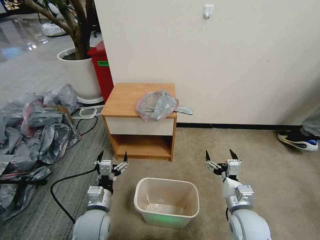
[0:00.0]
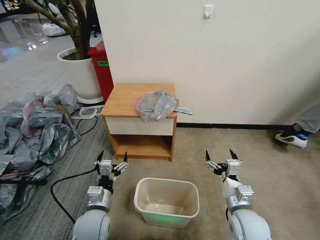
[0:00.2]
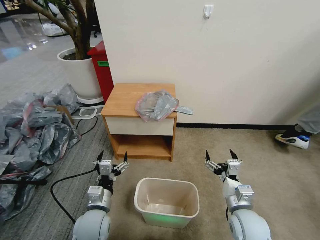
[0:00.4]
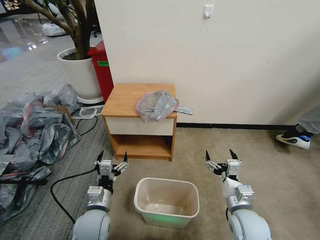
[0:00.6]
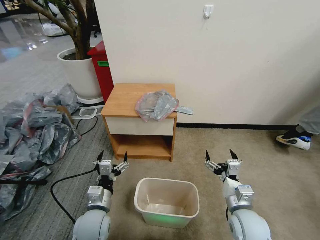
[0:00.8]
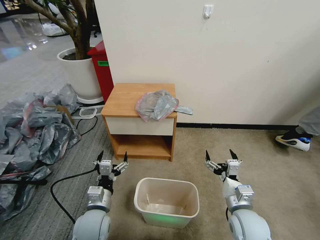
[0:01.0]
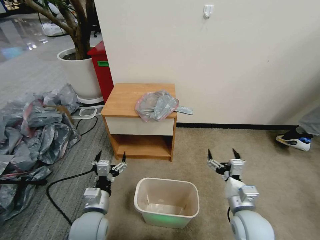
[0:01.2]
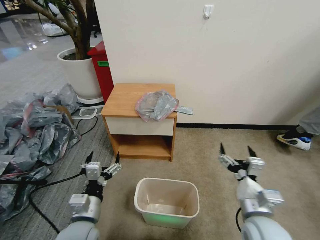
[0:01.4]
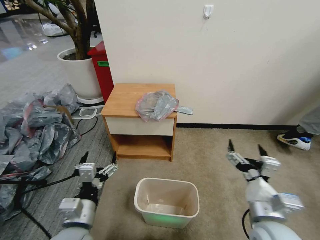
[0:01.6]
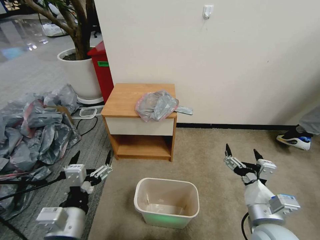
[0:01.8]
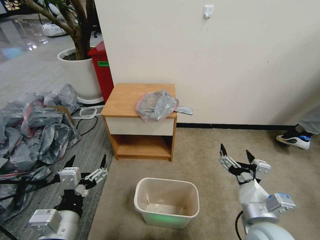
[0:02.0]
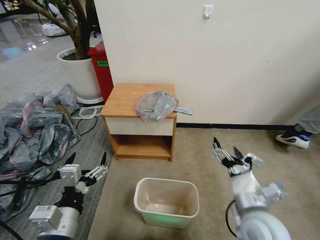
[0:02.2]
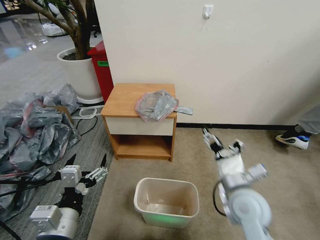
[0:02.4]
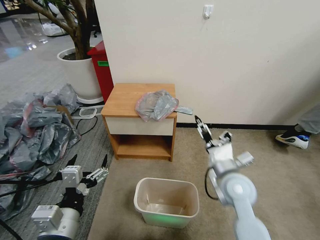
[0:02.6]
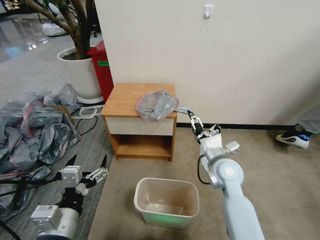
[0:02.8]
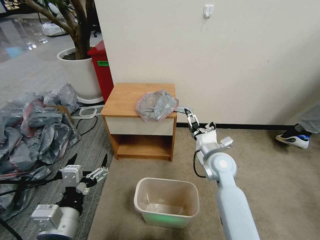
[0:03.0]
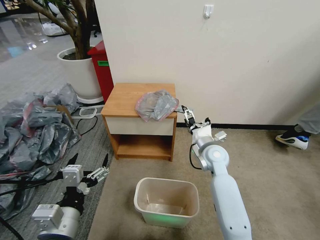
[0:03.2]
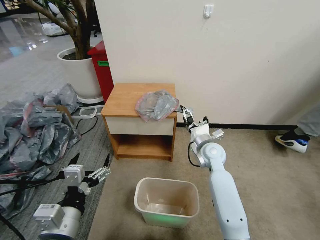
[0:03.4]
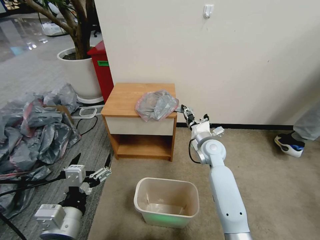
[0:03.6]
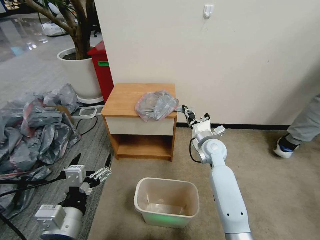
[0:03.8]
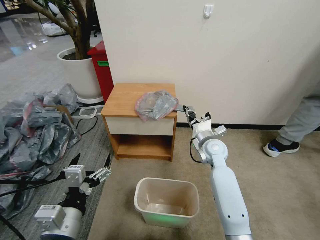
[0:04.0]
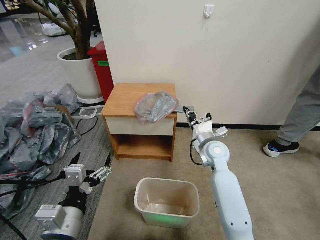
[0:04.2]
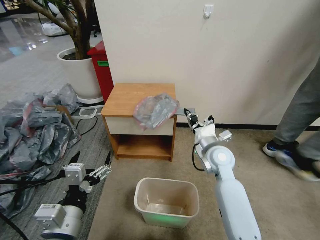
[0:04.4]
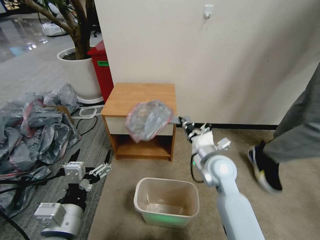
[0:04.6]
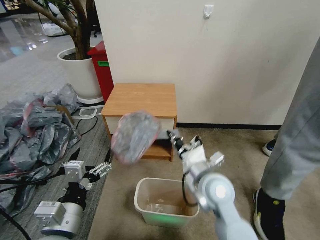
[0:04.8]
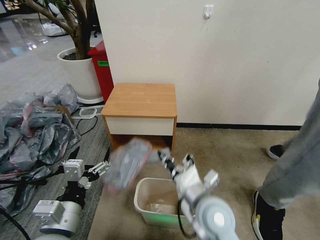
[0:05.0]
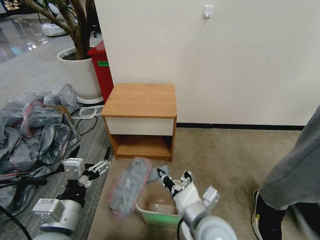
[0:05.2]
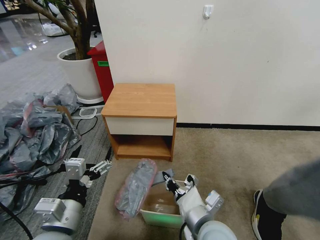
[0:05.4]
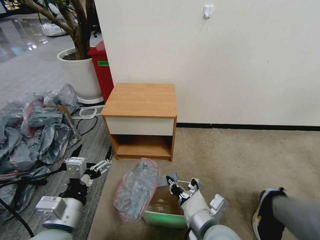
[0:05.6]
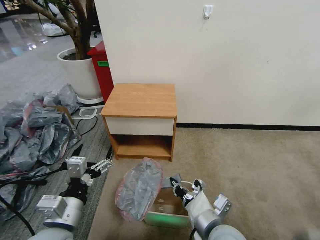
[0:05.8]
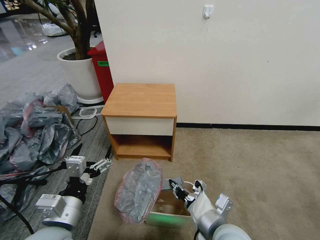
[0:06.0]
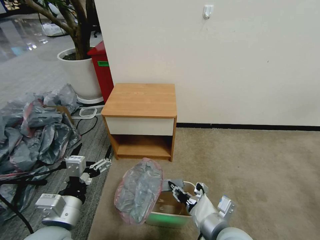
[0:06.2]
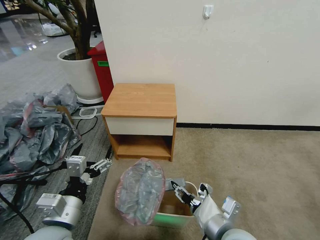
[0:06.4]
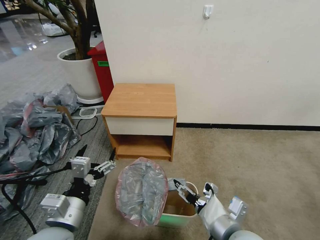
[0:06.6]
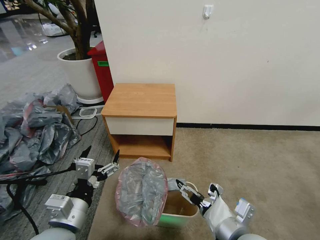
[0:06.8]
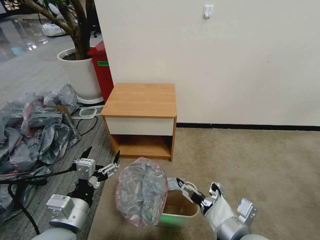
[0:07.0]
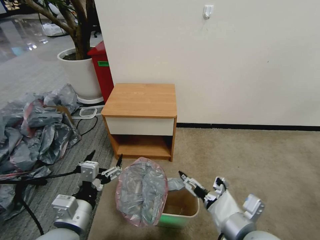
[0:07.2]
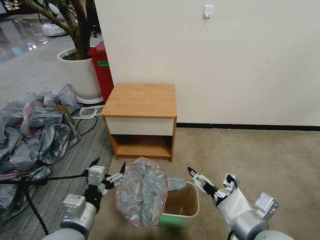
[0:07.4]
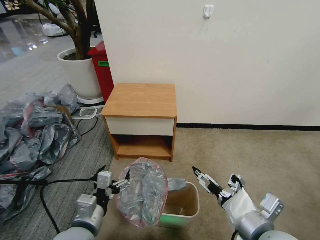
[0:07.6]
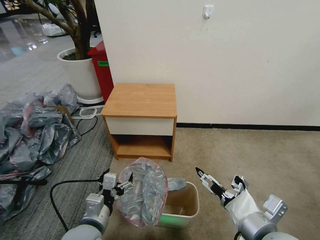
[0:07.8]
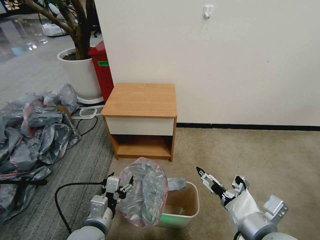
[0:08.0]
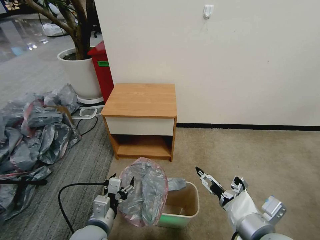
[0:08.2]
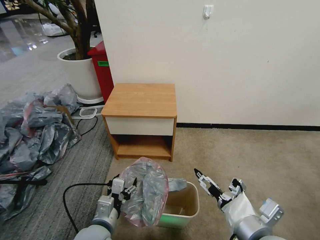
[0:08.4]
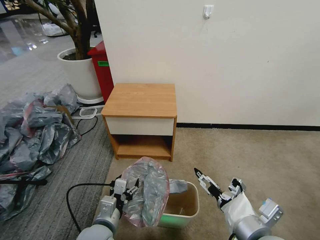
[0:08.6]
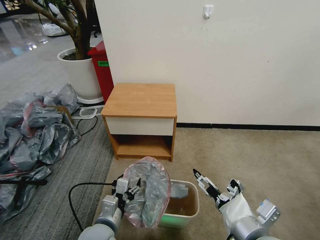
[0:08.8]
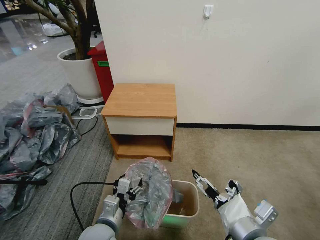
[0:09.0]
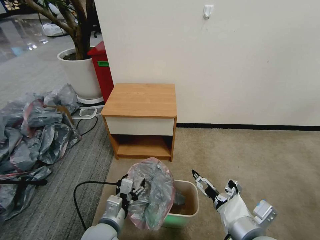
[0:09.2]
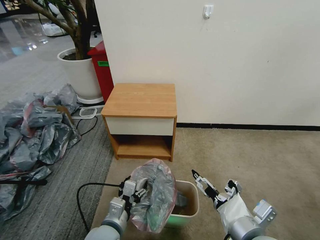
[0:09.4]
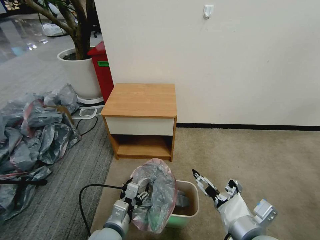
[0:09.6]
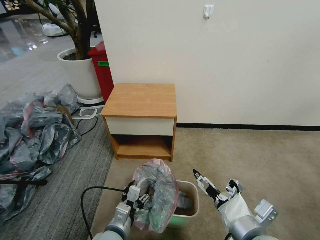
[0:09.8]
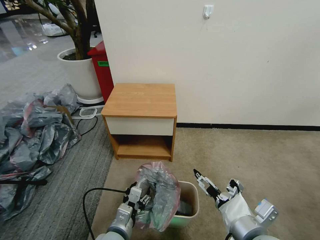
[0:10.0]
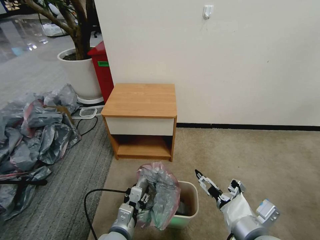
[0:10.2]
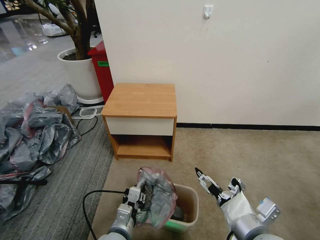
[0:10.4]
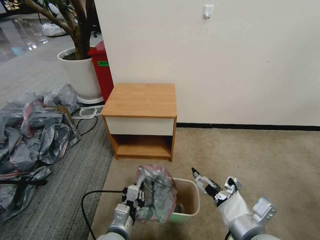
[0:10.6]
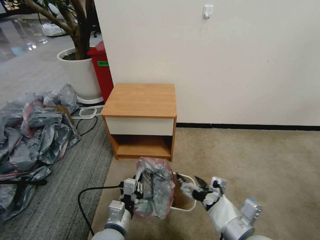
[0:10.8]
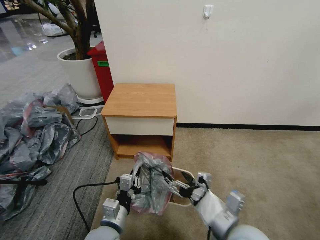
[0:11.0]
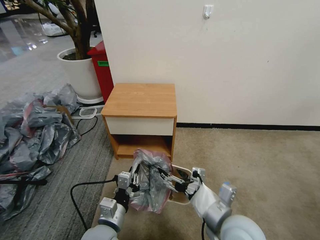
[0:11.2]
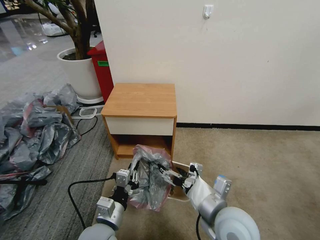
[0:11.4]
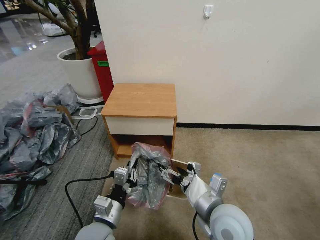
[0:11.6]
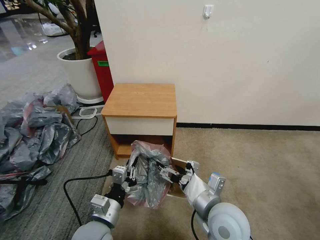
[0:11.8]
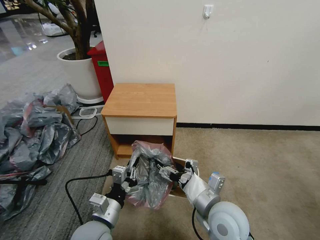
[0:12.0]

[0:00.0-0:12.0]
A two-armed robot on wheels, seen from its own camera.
Task of the whole recording: Pick up the garbage bag from the table and place it over the trash can.
0:01.6 to 0:03.0: The left gripper shifts about 5 cm upward. Meanwhile the right gripper is displaced forward by roughly 20 cm.
0:03.0 to 0:04.4: The right gripper closes its fingers.
0:04.4 to 0:06.0: The right gripper goes some 25 cm backward.
0:06.0 to 0:07.6: The left gripper is displaced downward by approximately 5 cm. Meanwhile the right gripper heads upward and to the right, covering some 10 cm, and opens up.
0:07.6 to 0:09.0: The left gripper travels downward by some 5 cm.
0:09.0 to 0:10.4: The left gripper closes its fingers.
0:10.4 to 0:12.0: The left gripper ends up approximately 5 cm from where it was. The right gripper is displaced forward and to the left by roughly 10 cm.

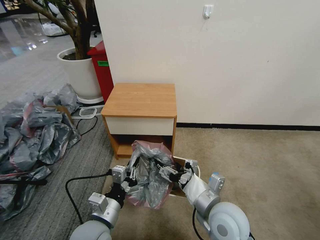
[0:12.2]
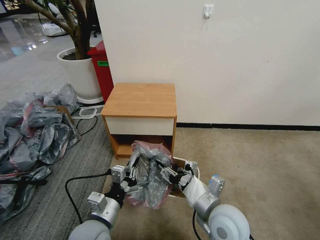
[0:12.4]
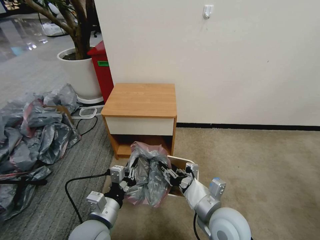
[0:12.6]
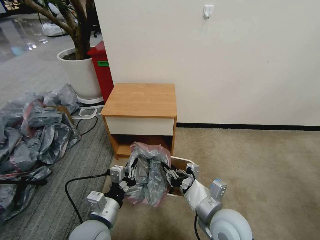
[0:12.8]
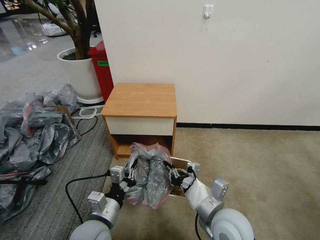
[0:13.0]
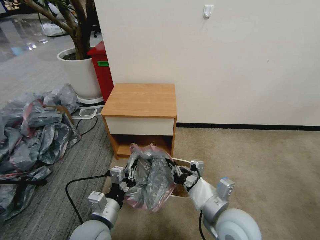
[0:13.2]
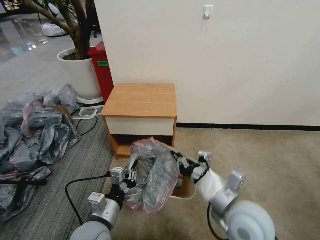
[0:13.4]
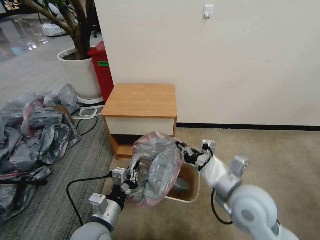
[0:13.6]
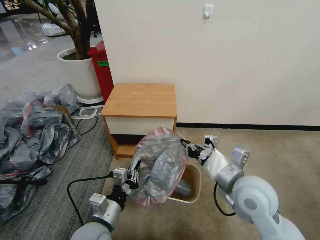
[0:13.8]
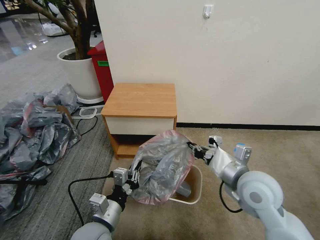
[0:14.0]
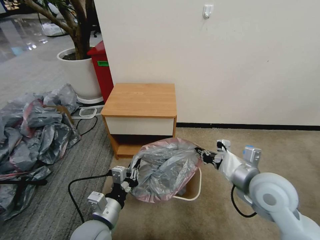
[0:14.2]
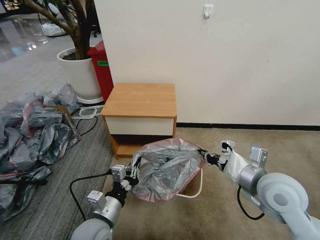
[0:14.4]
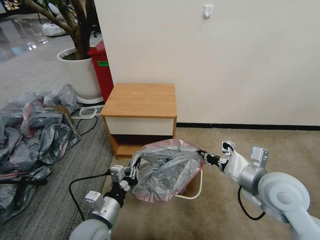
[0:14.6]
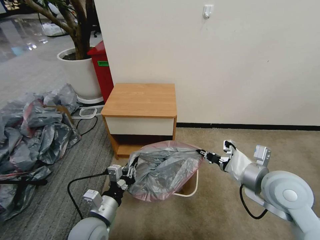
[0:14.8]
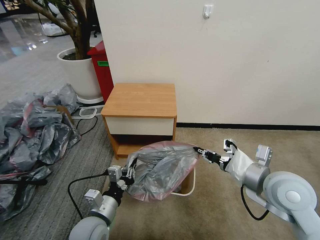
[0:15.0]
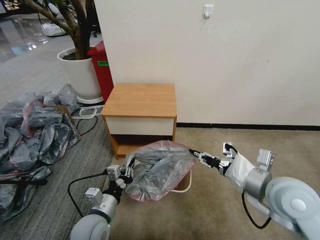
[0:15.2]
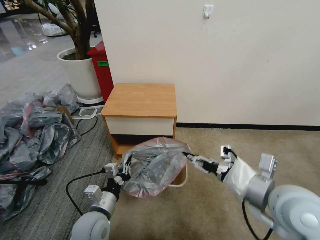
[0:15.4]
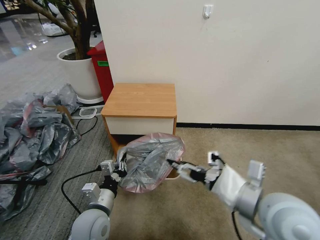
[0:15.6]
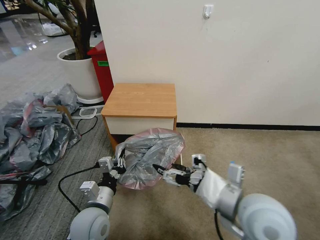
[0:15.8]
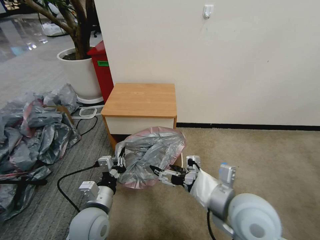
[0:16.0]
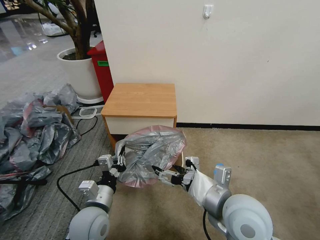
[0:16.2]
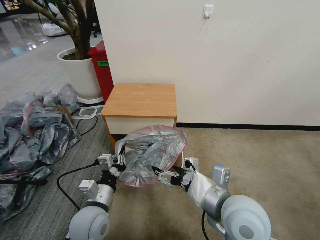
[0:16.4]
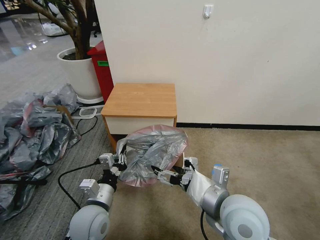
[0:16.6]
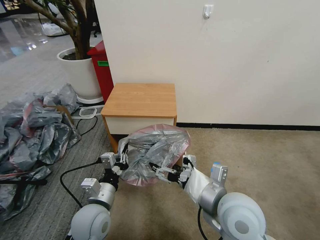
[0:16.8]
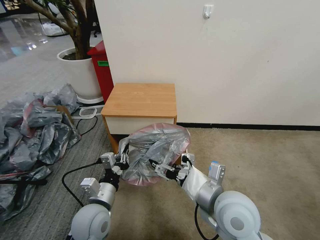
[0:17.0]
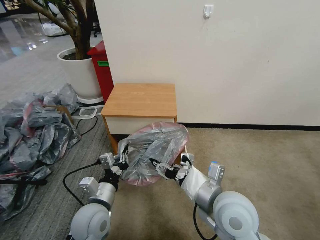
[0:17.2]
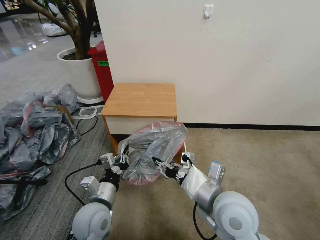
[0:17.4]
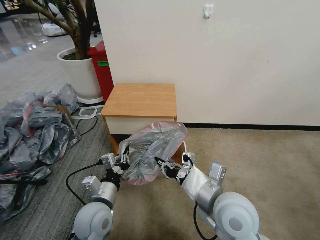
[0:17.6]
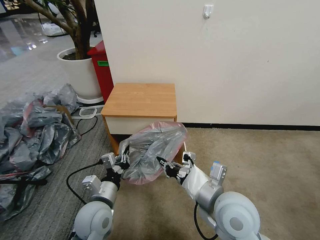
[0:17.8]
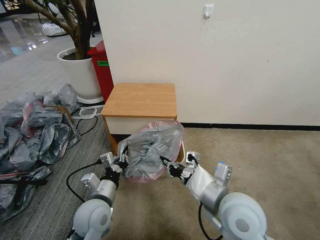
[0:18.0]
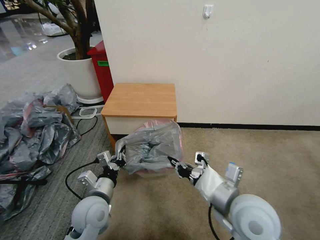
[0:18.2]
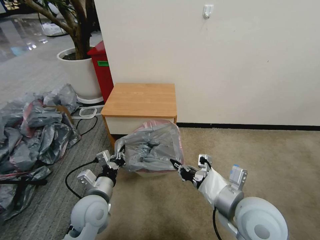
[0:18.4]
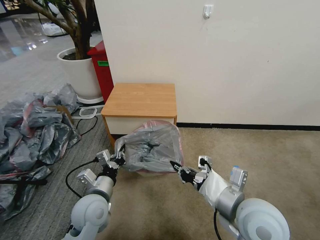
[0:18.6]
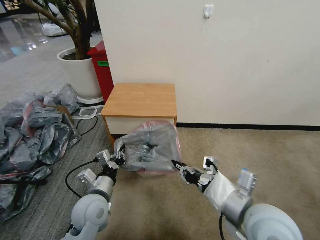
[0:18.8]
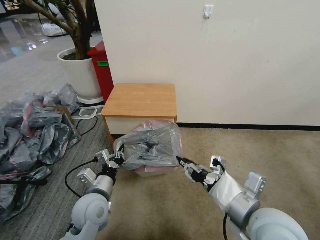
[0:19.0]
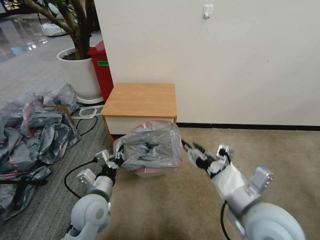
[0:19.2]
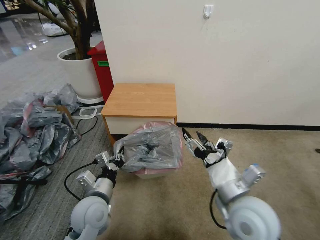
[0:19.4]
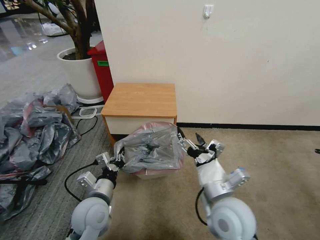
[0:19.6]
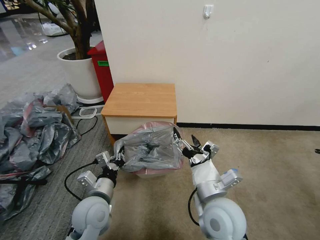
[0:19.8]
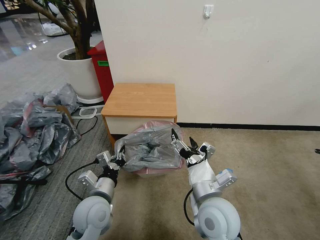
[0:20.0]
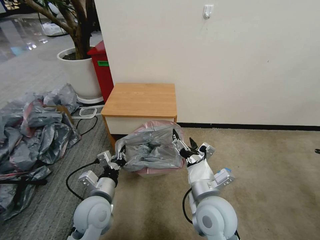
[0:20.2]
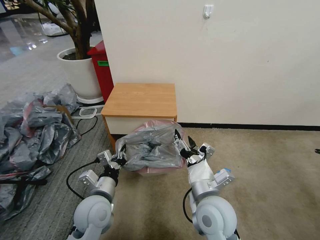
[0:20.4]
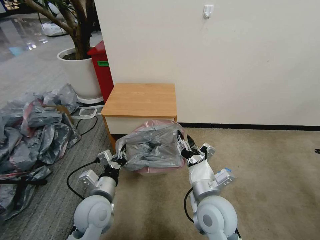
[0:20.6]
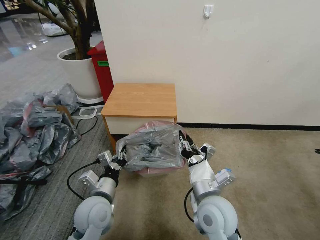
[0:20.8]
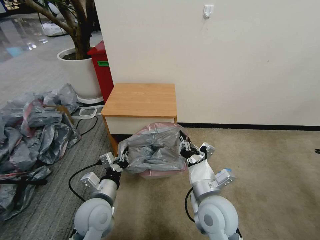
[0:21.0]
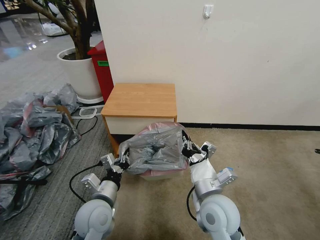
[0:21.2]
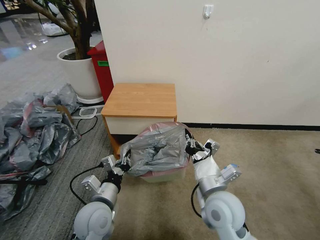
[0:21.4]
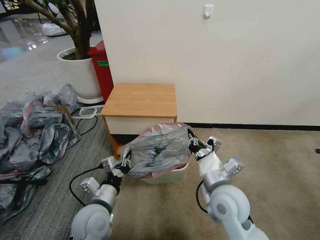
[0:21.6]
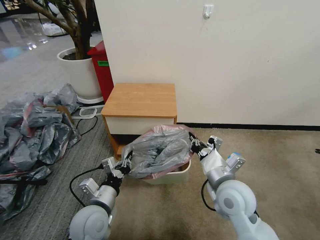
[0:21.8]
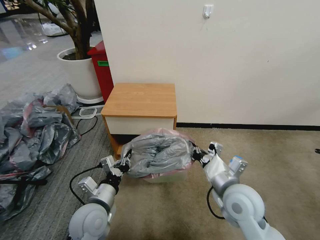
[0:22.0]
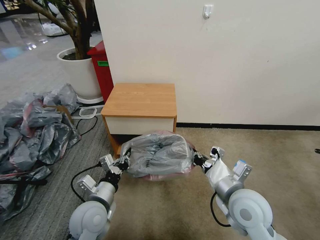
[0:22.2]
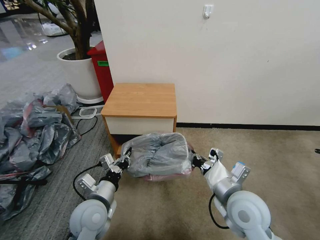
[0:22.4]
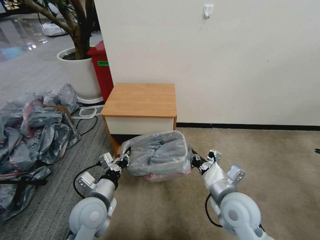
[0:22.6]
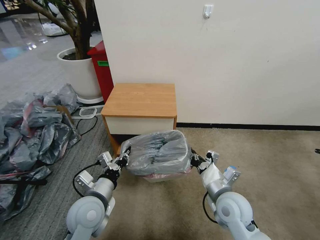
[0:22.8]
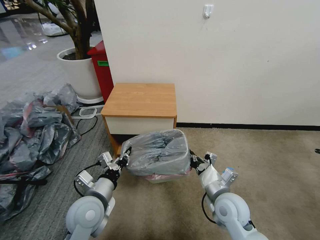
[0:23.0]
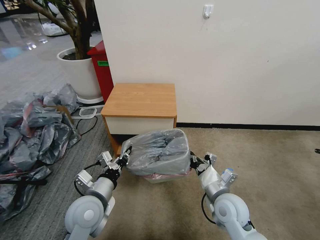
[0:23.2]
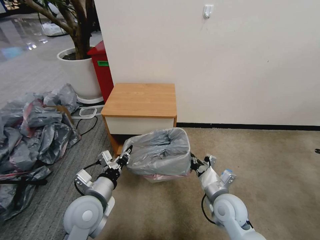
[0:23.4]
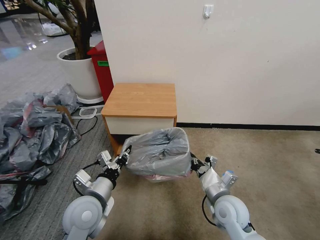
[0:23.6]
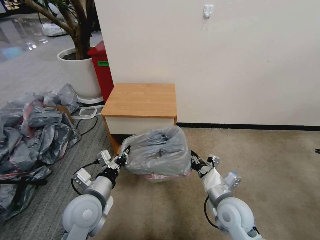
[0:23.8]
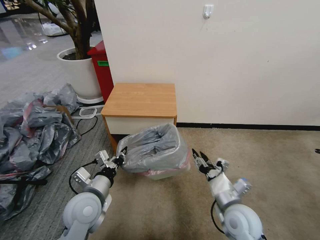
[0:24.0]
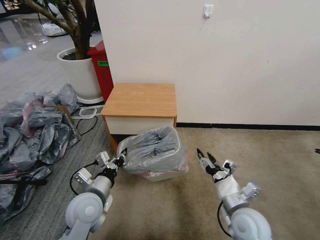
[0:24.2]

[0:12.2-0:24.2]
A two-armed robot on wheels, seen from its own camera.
Task of the whole recording: Pick up the garbage bag from the table and place it over the trash can.
0:12.2 to 0:13.8: The right gripper heads upward and to the right, covering approximately 10 cm, and closes.
0:13.8 to 0:15.2: The right gripper heads to the right, covering roughly 5 cm.
0:15.2 to 0:16.6: The right gripper shifts approximately 10 cm to the left, and opens its fingers.
0:16.6 to 0:18.2: The right gripper closes.
0:18.2 to 0:19.8: The right gripper goes about 5 cm to the left, and opens its fingers.
0:19.8 to 0:21.2: The right gripper closes up.
0:21.2 to 0:22.6: The right gripper shifts some 5 cm to the right.
0:22.6 to 0:24.2: The right gripper goes approximately 5 cm downward, and opens.
